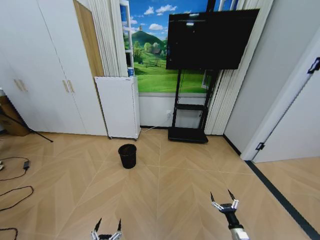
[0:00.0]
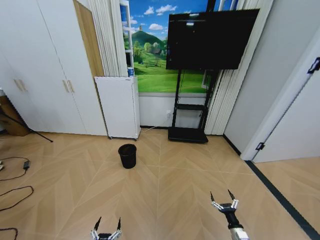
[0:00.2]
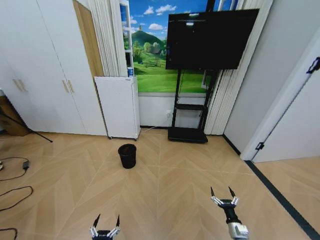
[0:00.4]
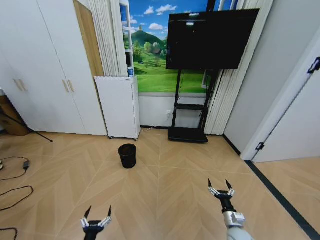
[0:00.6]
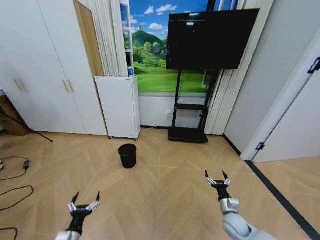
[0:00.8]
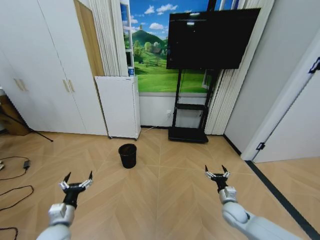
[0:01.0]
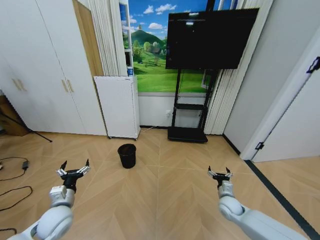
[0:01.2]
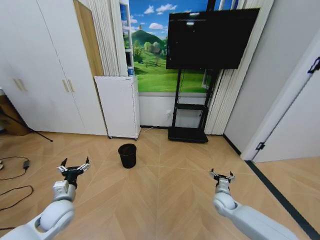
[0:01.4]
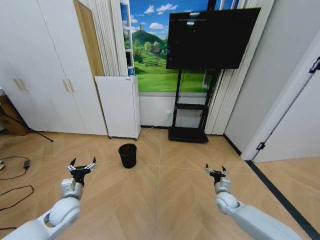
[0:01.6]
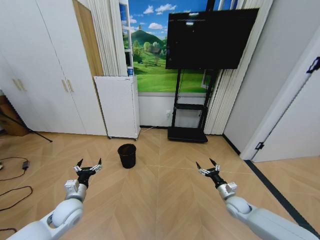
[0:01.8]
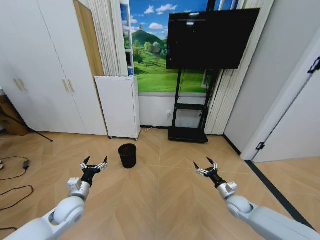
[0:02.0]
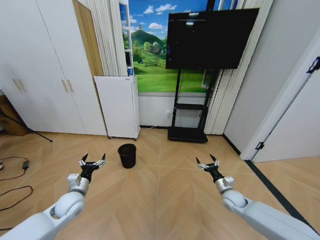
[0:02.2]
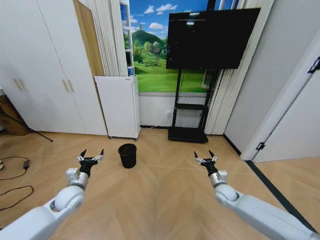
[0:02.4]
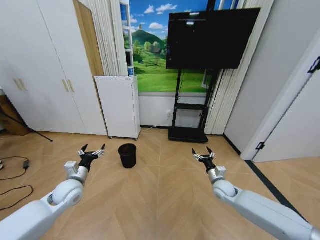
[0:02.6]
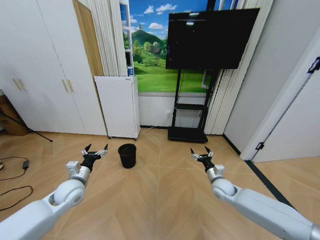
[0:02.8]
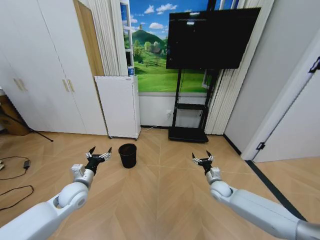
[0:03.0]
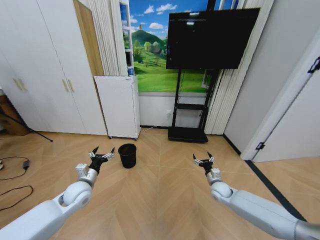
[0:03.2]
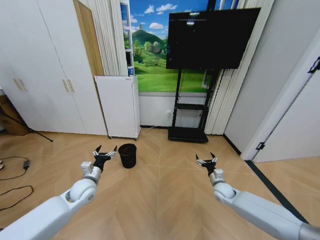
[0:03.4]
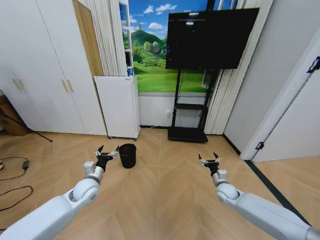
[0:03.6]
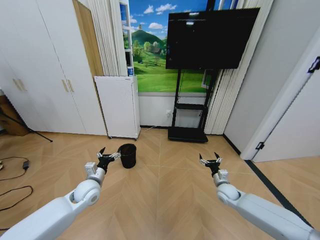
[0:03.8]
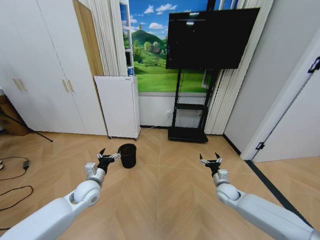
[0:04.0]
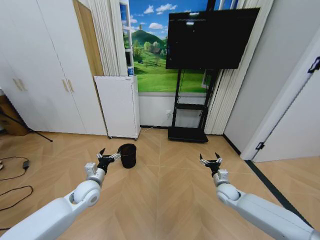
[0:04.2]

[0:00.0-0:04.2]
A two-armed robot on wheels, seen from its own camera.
Task of the whole recording: Pick up the trash bin and place the garbage on the floor into it.
0.0 to 1.4 s: The right gripper shifts approximately 20 cm forward and upward. Meanwhile the left gripper heads forward, upward and to the left, covering about 30 cm.
1.4 to 2.8 s: The left gripper moves forward, approximately 5 cm. The right gripper is displaced upward by about 5 cm.
2.8 to 4.2 s: The left gripper heads to the right, covering about 5 cm.

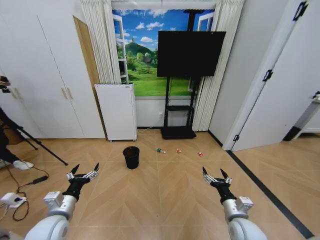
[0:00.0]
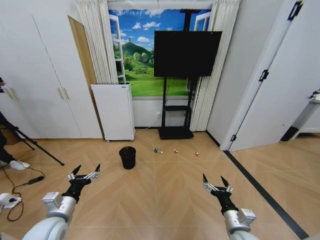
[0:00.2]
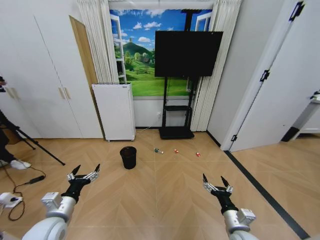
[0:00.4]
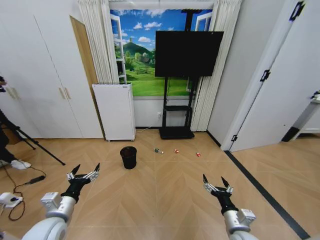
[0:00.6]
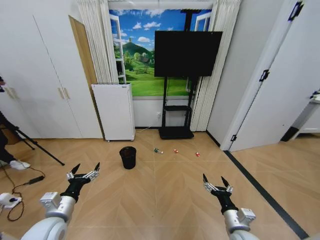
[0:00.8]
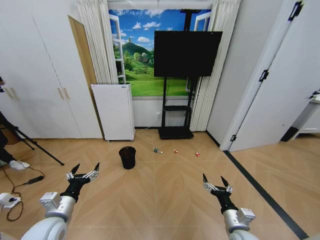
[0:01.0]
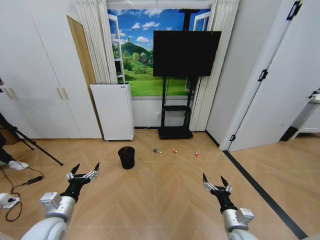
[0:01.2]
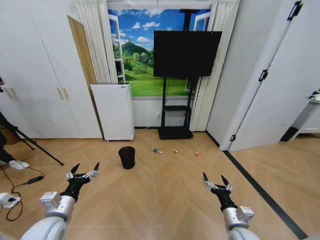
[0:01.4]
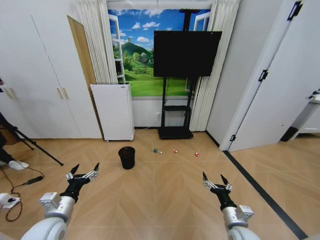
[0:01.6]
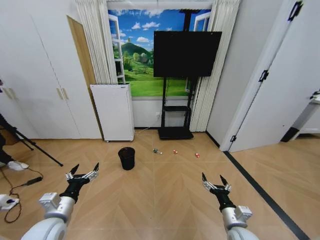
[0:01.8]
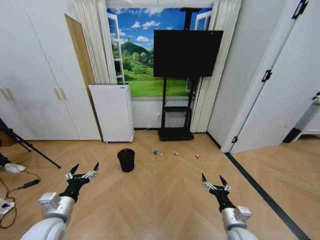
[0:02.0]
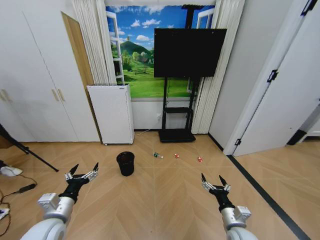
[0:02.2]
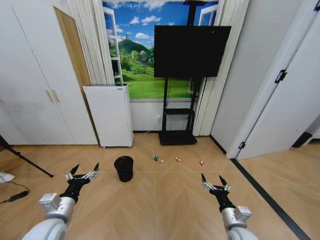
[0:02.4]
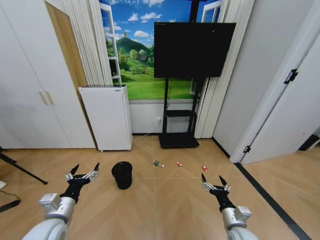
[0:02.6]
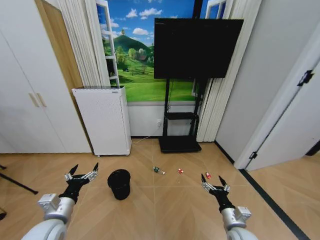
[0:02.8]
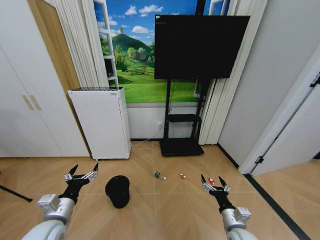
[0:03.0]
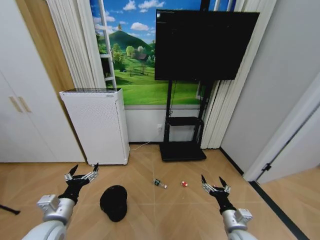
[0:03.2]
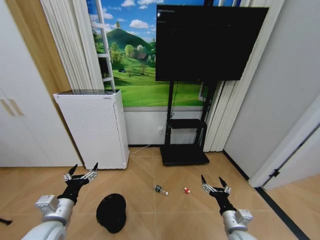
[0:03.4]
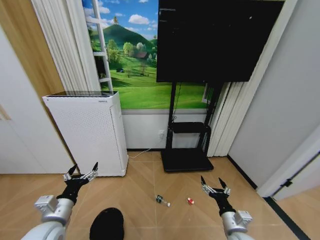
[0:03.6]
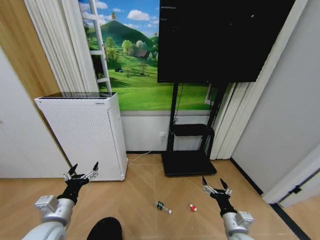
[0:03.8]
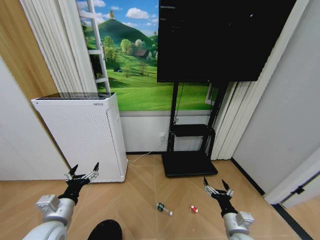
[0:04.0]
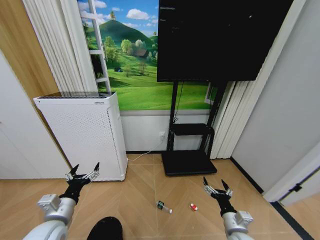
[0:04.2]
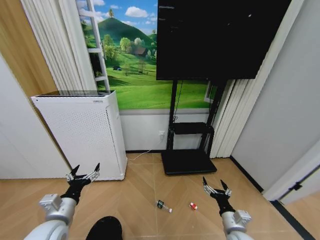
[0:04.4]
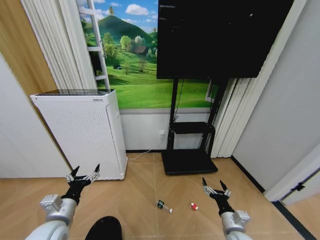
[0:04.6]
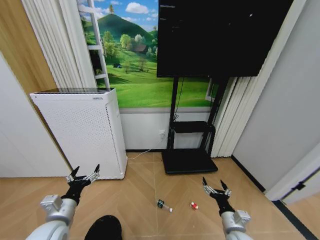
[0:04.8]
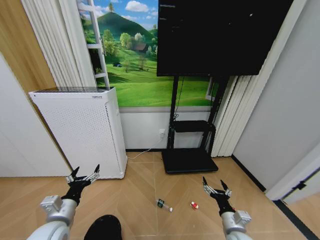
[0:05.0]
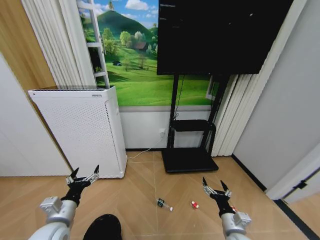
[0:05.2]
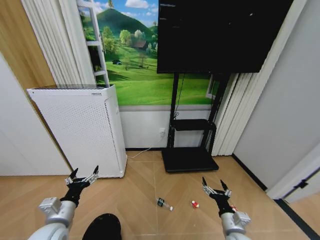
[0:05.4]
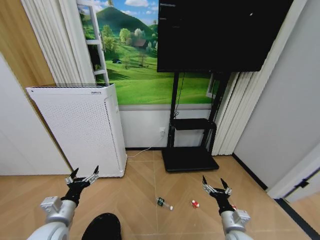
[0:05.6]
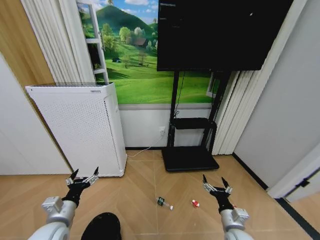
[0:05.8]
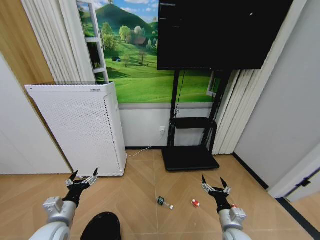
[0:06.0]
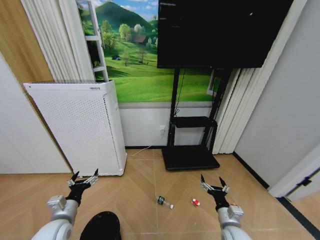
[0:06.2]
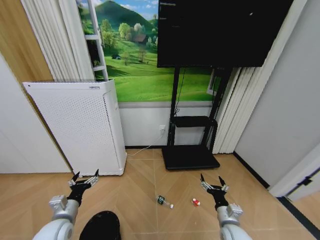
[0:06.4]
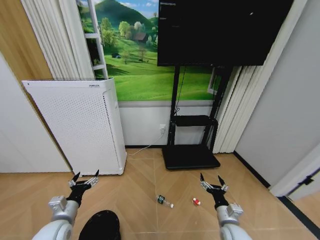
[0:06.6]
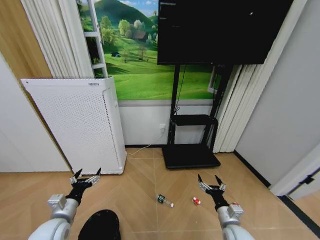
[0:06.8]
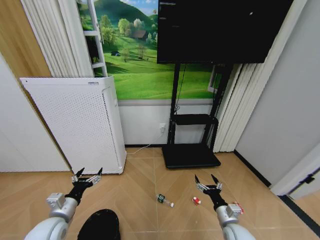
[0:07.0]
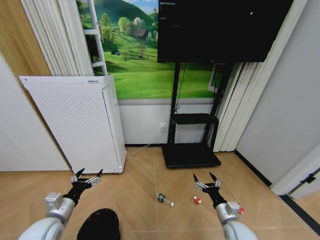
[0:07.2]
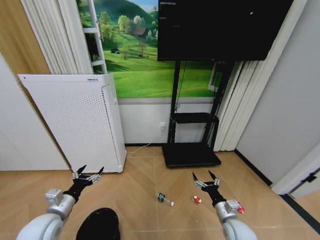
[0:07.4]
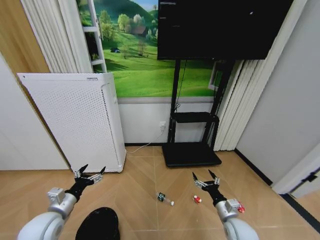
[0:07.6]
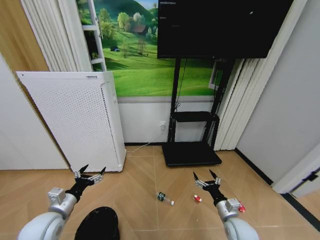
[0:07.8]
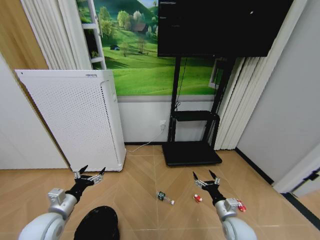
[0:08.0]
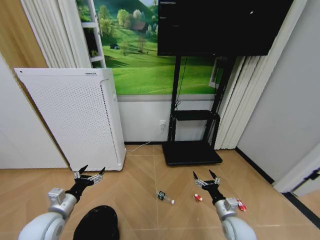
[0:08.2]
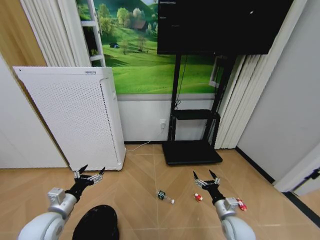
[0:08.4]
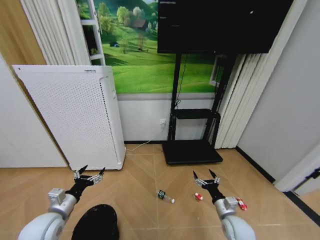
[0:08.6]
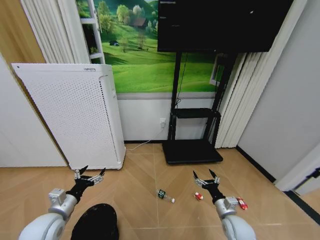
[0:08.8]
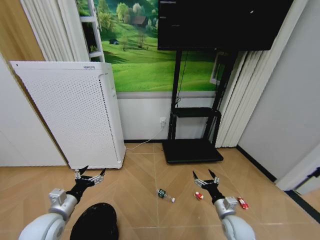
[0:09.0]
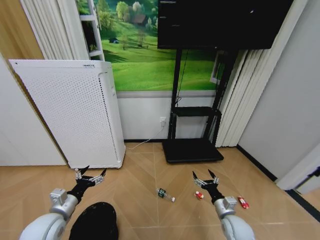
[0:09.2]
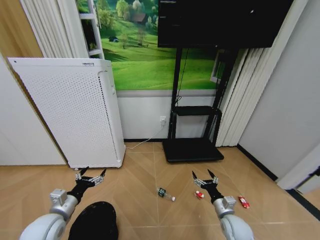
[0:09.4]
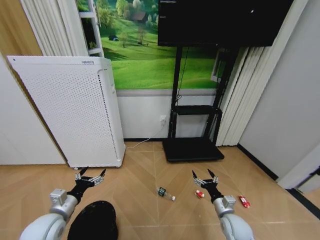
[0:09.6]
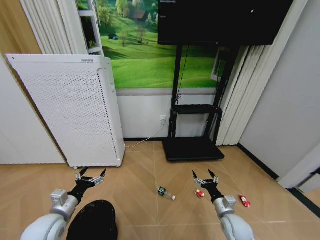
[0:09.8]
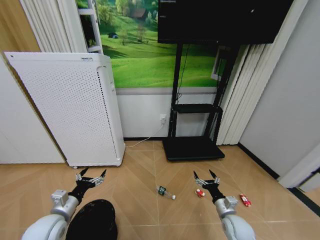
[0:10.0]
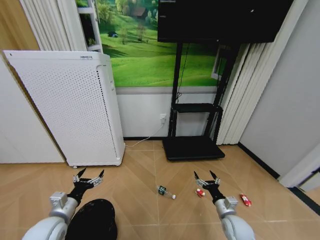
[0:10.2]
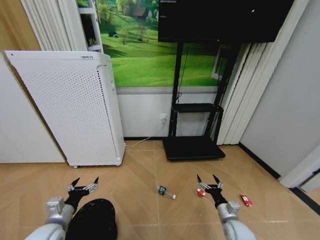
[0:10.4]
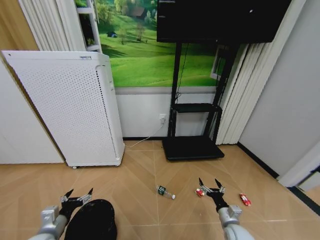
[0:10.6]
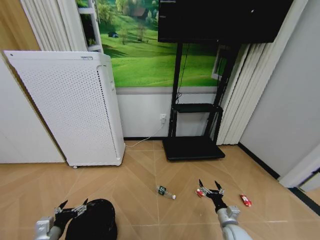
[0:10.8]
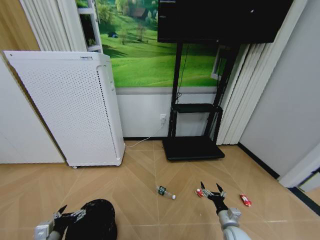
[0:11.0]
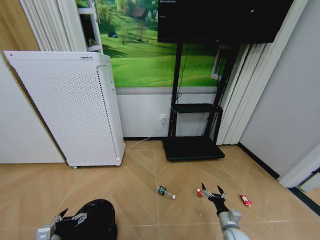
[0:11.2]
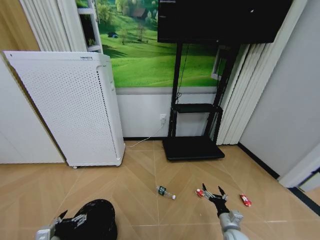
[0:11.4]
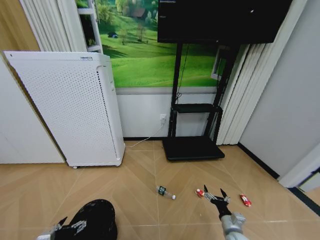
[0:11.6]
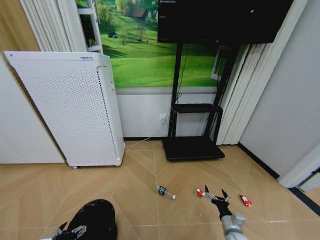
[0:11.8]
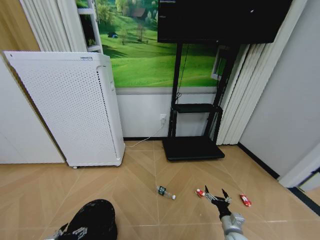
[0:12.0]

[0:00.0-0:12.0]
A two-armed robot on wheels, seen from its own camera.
Task of the whole recording: Pick up the trash bin and place the garbage on the floor into it.
4.4 to 9.0 s: There are only small adjustments of the grippers.
9.0 to 10.4 s: The grippers move only a little.
10.4 to 12.0 s: The left gripper heads downward and backward, covering some 15 cm, while the right gripper ends up about 5 cm from where it was.

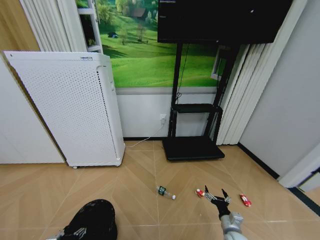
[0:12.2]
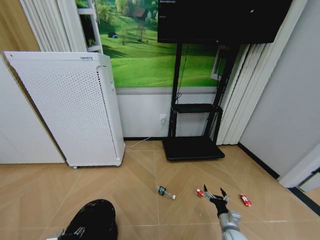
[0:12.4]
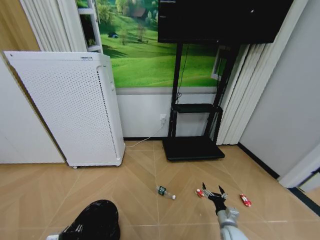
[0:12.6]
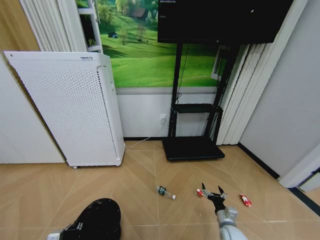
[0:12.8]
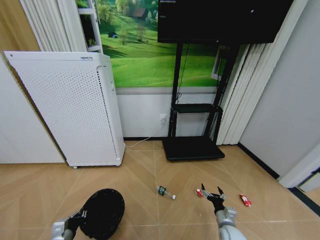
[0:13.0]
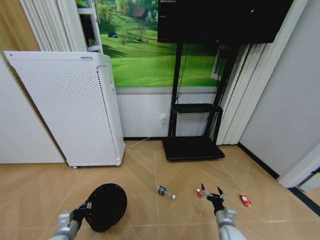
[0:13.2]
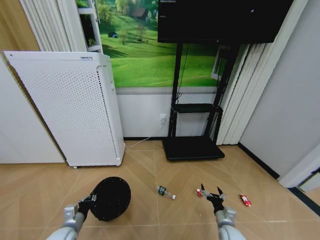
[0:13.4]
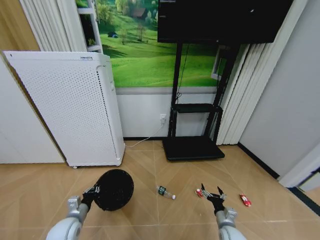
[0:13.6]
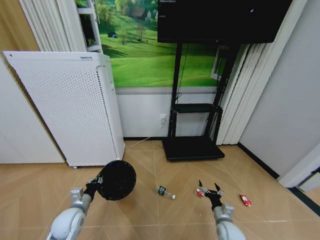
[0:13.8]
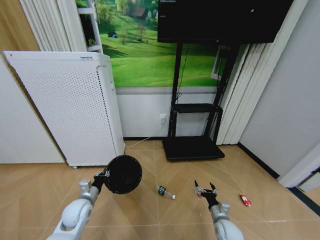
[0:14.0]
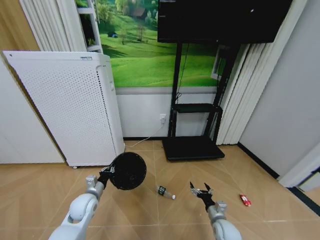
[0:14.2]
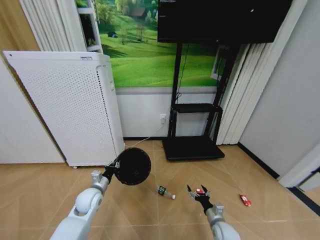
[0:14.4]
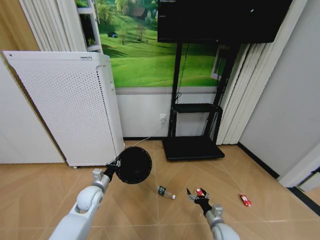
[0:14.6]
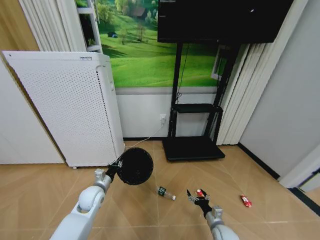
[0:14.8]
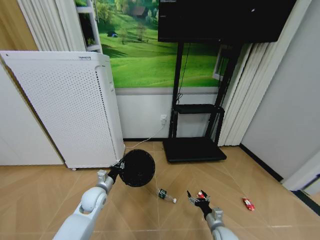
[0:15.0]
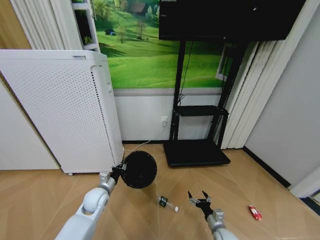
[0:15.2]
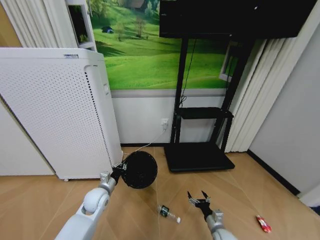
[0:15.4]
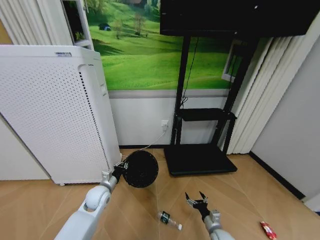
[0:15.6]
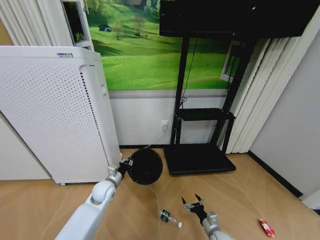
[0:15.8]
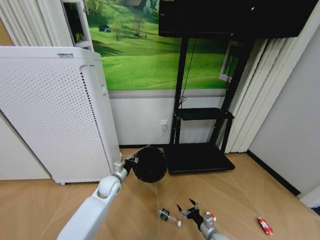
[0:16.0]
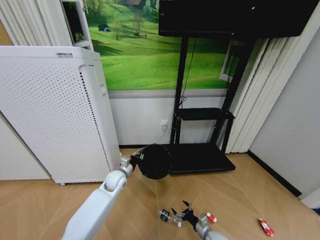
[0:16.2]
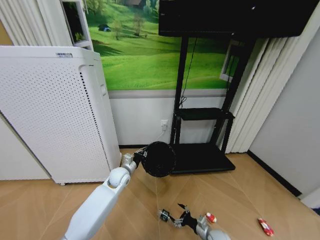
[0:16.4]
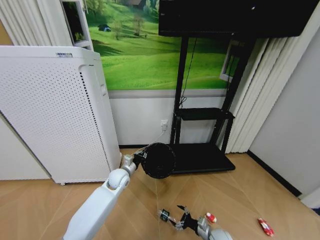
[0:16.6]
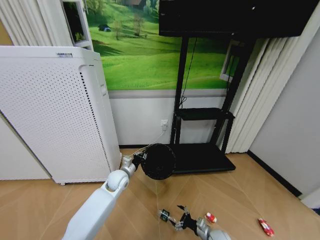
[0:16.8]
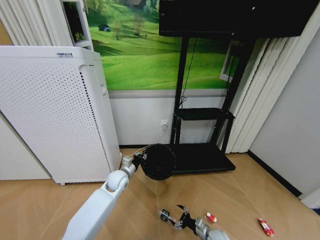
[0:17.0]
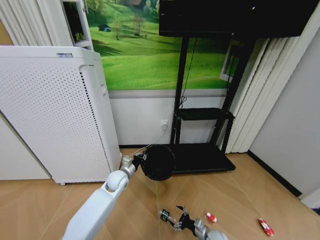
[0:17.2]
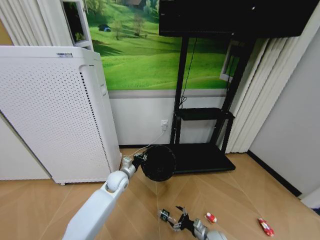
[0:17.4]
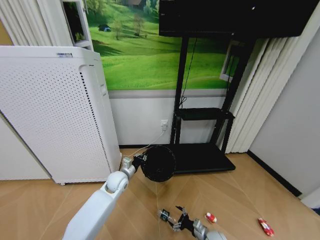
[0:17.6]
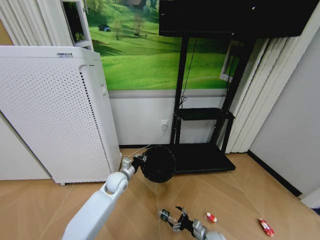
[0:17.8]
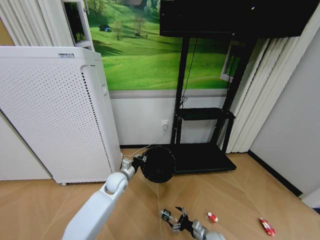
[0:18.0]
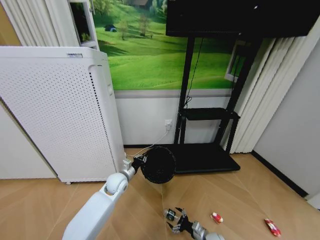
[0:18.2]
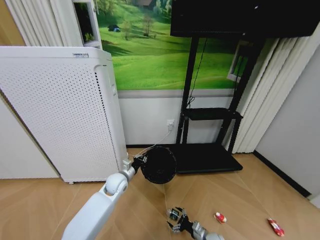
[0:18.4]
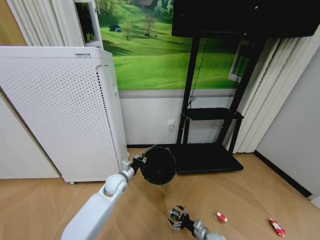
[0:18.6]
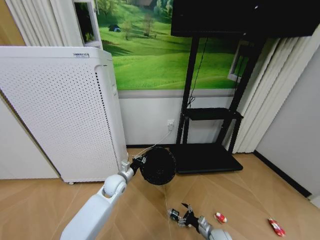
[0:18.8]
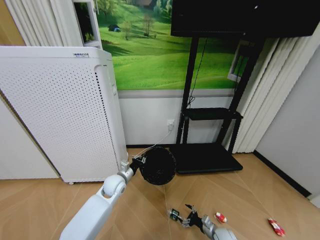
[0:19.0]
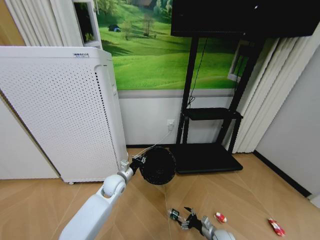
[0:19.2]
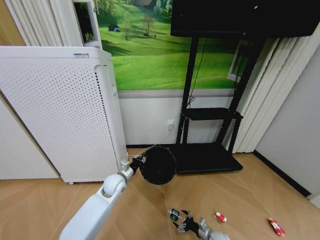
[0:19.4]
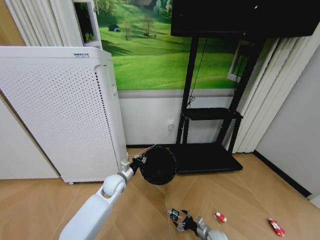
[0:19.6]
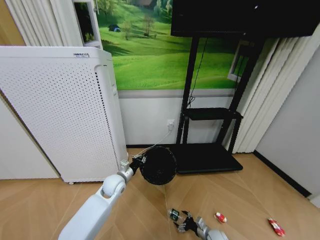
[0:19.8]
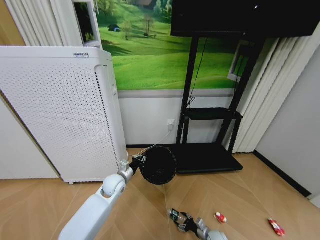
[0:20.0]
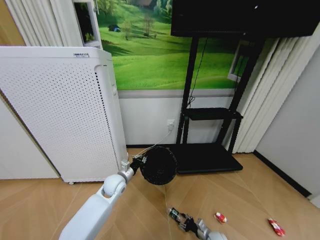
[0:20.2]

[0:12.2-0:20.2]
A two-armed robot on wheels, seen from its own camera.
Task of the whole recording: Pick up the trash bin and place the garbage on the floor into it.
12.2 to 13.8 s: The left gripper travels forward by about 15 cm, and closes up.
13.8 to 15.4 s: The left gripper goes roughly 10 cm to the right and forward.
15.4 to 17.0 s: The left gripper shifts some 10 cm to the right and forward.
18.6 to 20.2 s: The right gripper heads downward, covering approximately 5 cm, and closes.
